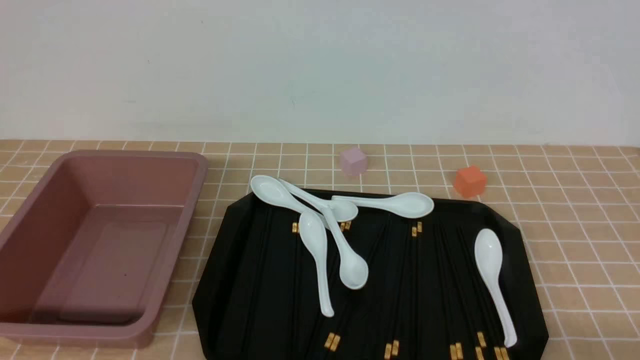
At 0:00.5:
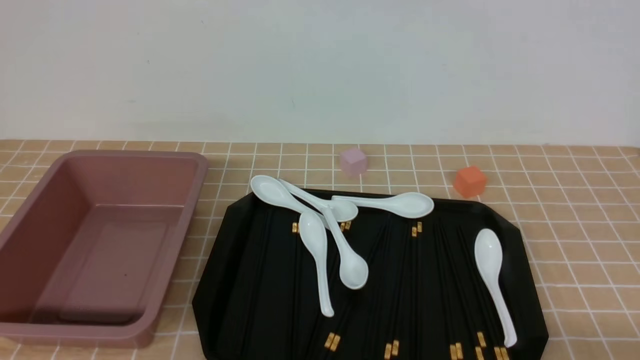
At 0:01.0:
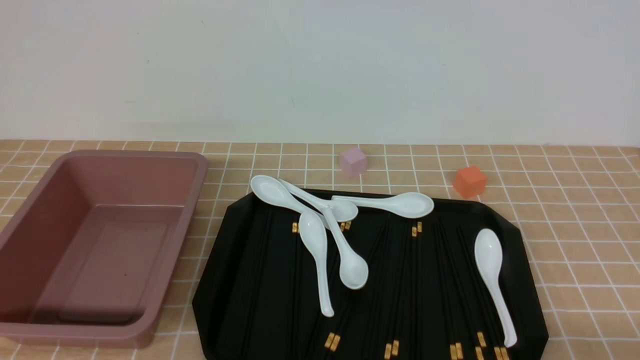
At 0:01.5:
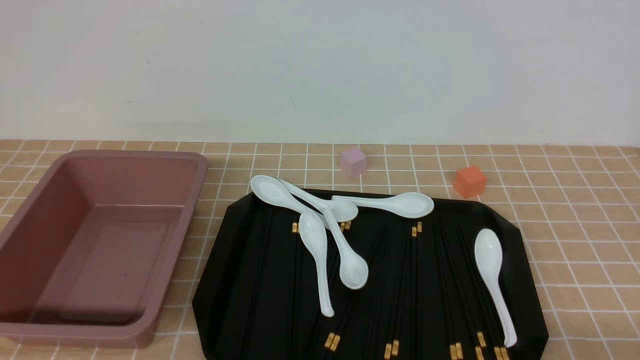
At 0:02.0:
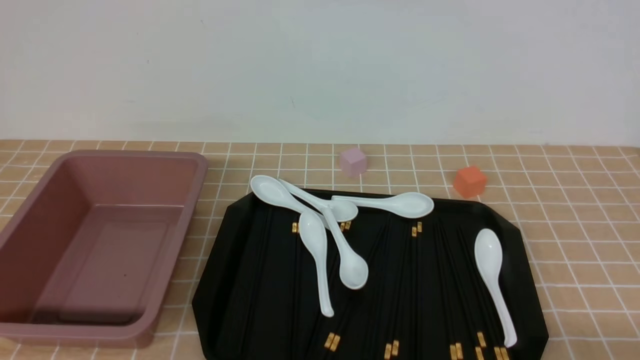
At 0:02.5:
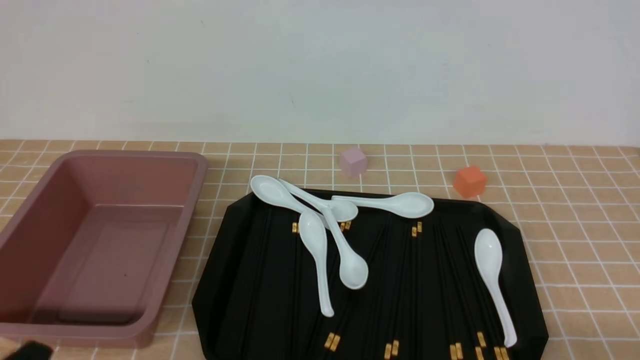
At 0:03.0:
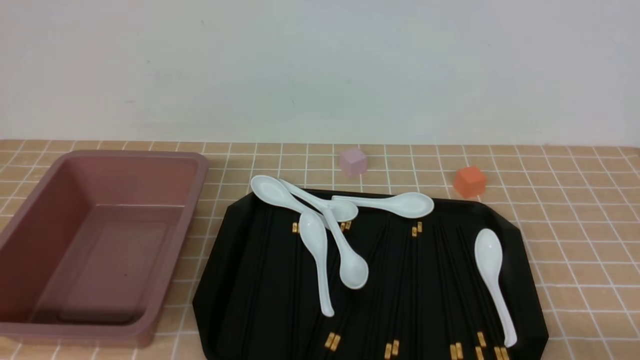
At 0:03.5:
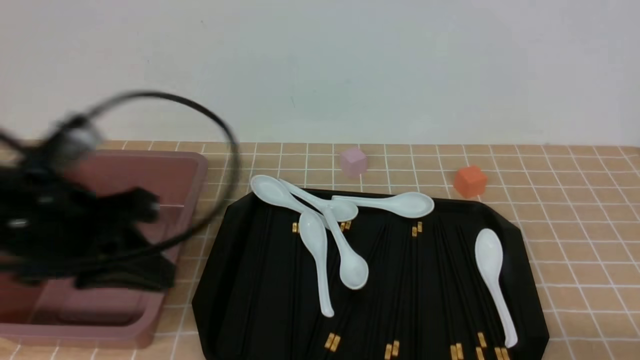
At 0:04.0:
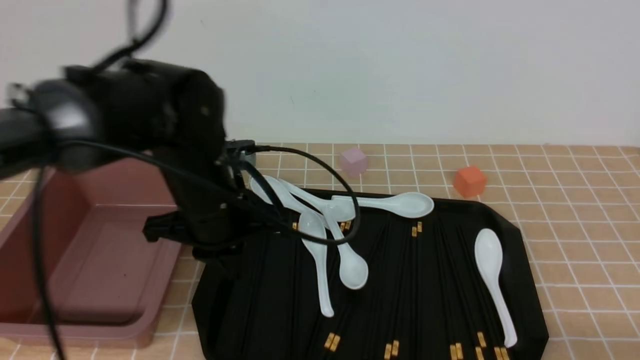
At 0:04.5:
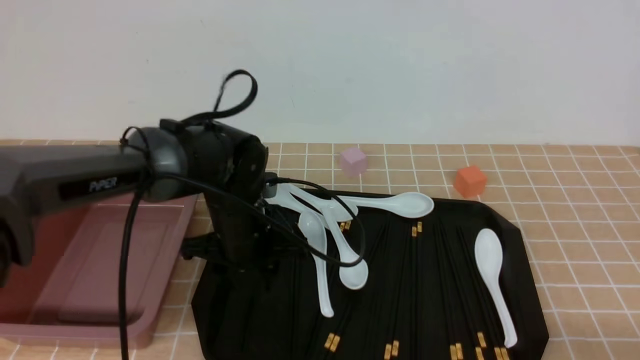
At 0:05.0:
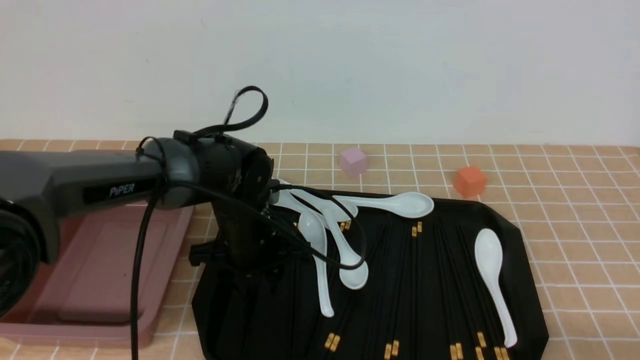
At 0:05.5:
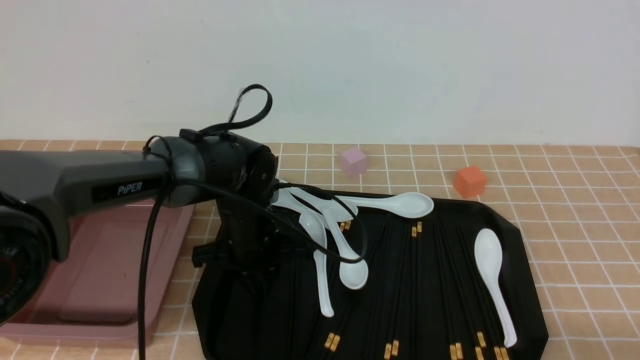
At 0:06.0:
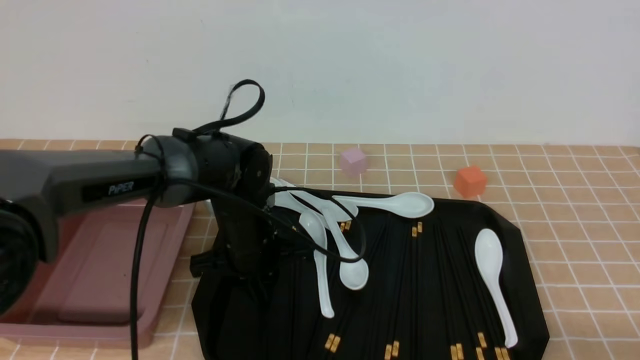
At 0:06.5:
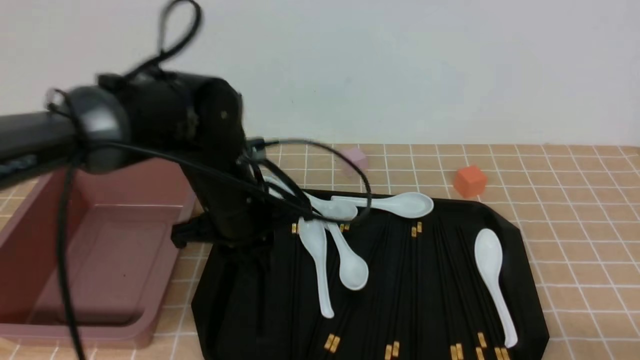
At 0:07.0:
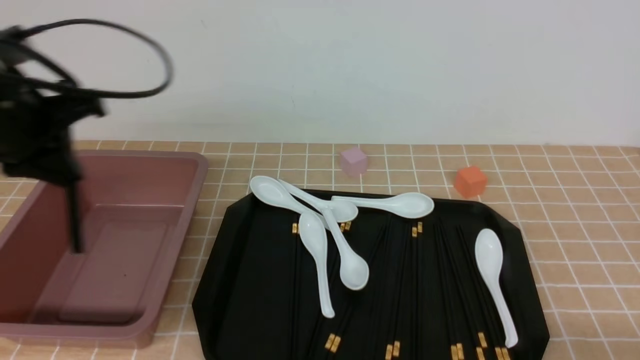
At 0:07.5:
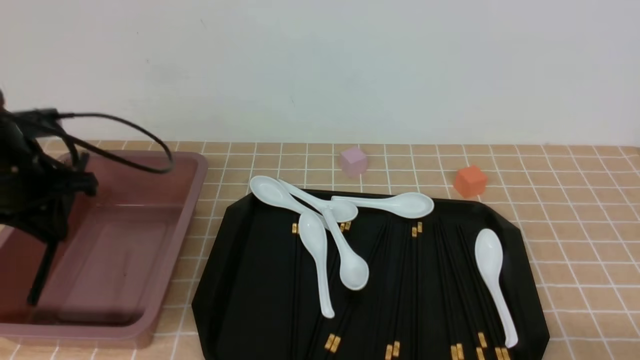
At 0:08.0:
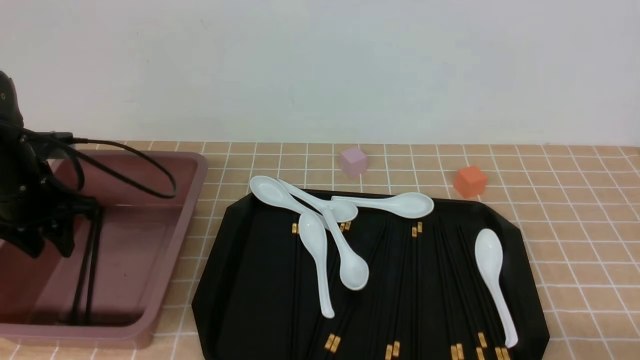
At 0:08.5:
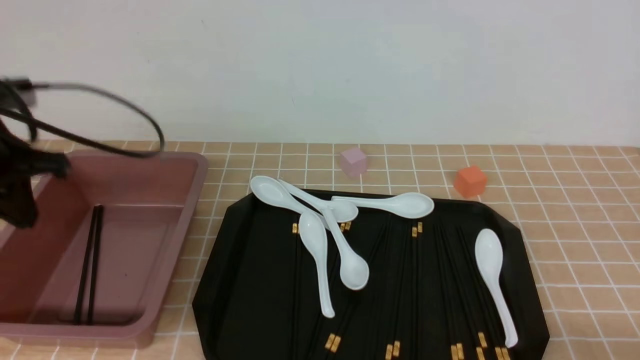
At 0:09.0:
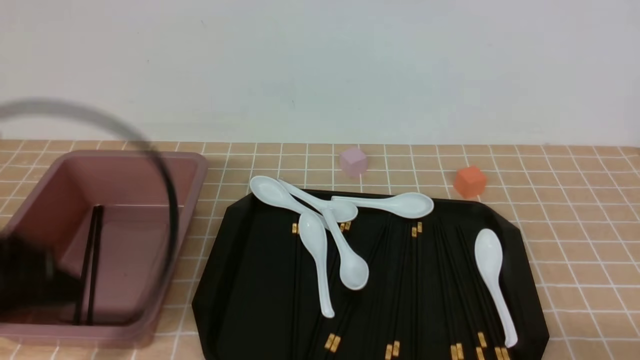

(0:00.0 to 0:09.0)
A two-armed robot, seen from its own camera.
Step, 0:00.0 - 0:06.0: use the left arm to grab a pair of chopsticks.
Step, 0:06.5 - 0:08.5: use the left arm to put the chopsticks into the lunch box.
0:02.0 - 0:04.5: The left gripper shifts roughly 35 cm forward and to the right, and closes, then reopens.
0:04.5 - 0:07.0: The left gripper is displaced upward and to the left by roughly 20 cm, and closes its fingers.
0:07.0 - 0:09.0: The left gripper moves backward, about 15 cm, and opens, then closes once more.

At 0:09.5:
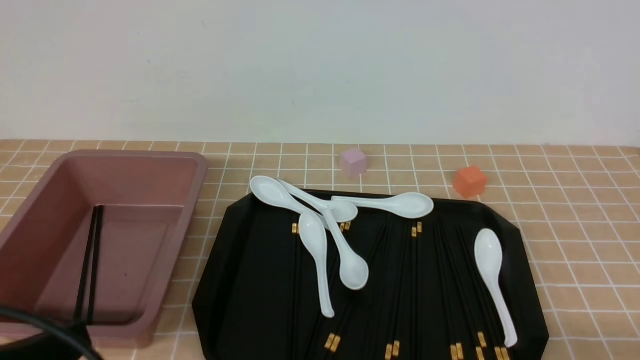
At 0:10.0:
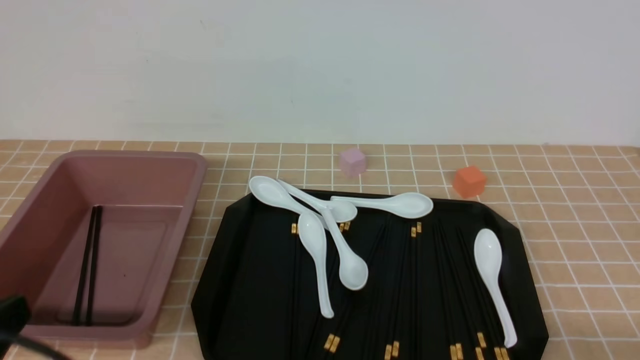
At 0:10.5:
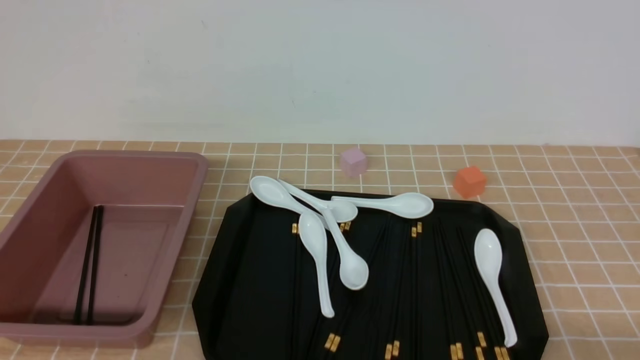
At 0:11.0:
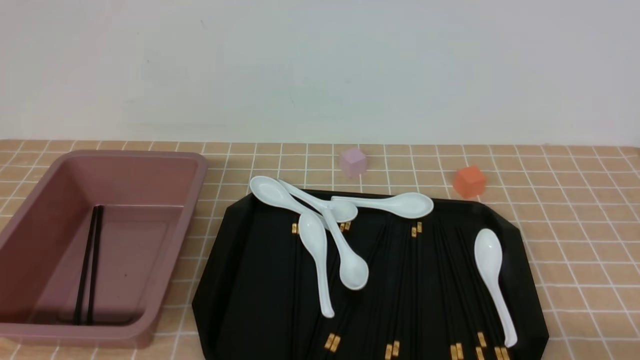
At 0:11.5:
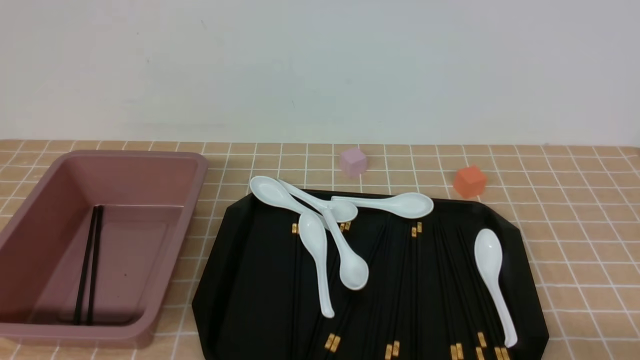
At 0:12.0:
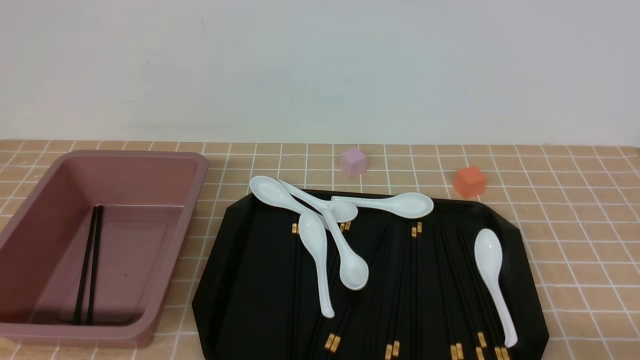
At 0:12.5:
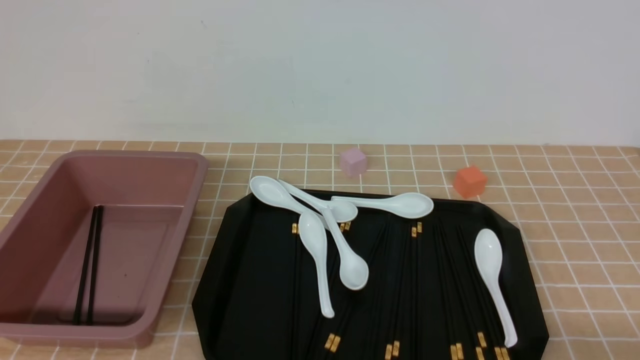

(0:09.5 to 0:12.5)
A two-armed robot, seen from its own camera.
0:09.5 - 0:11.0: The left gripper moves downward, about 10 cm.
0:11.0 - 0:12.5: Both grippers stay about where they are.
